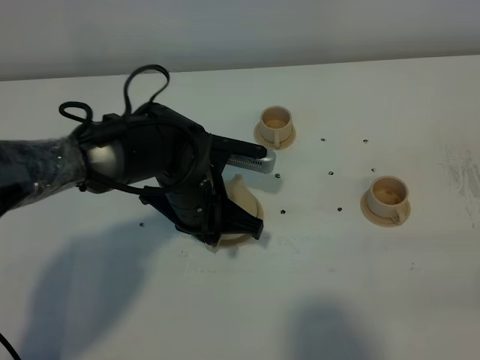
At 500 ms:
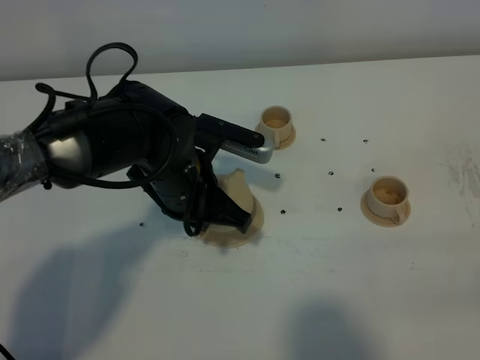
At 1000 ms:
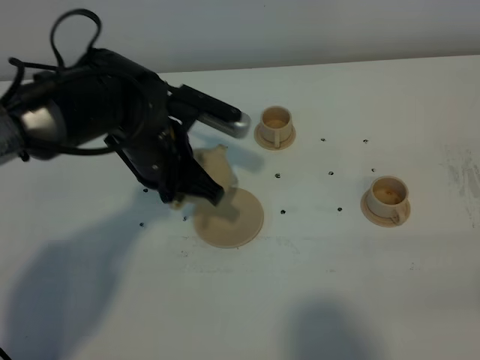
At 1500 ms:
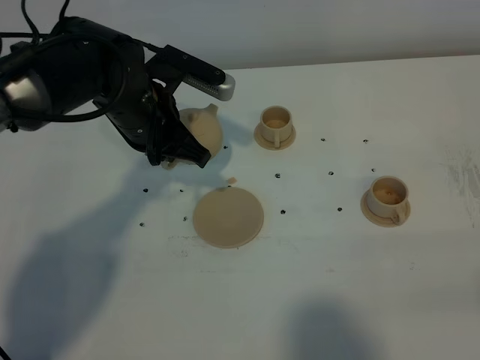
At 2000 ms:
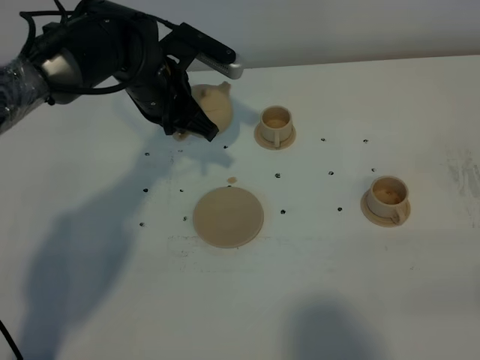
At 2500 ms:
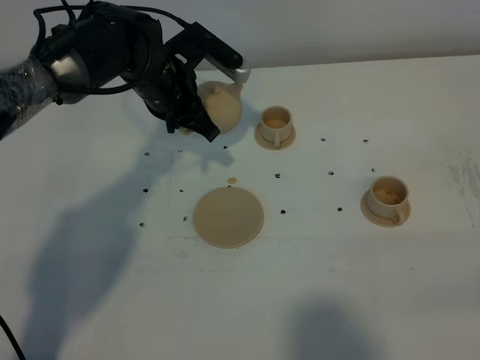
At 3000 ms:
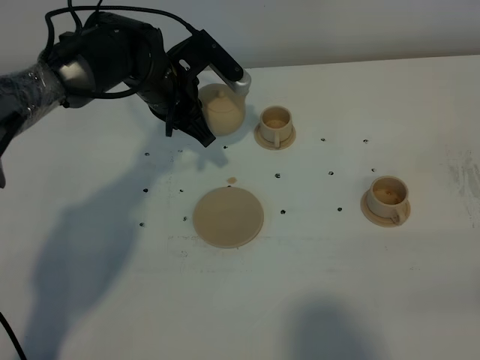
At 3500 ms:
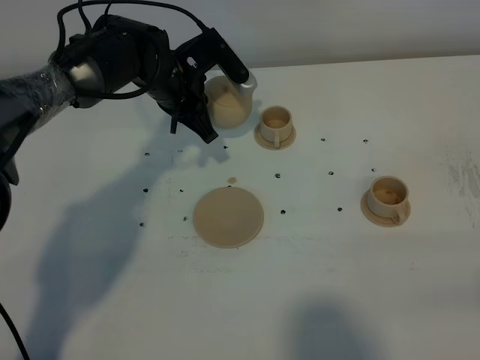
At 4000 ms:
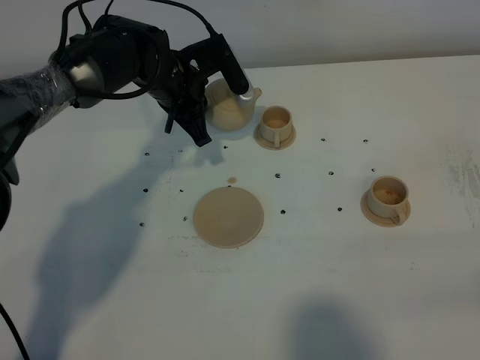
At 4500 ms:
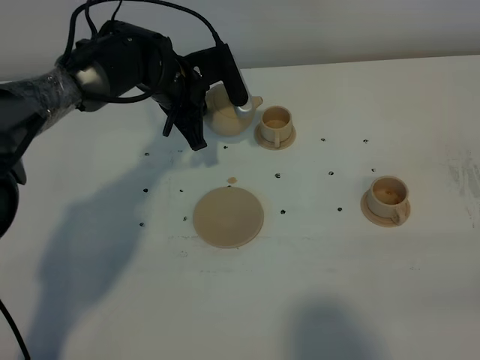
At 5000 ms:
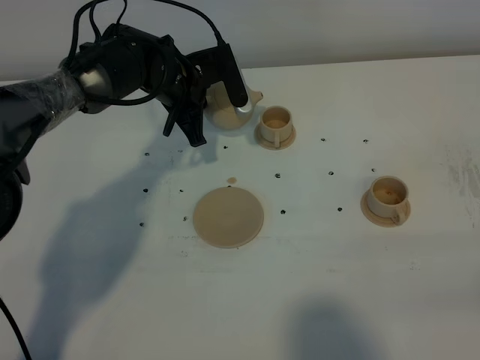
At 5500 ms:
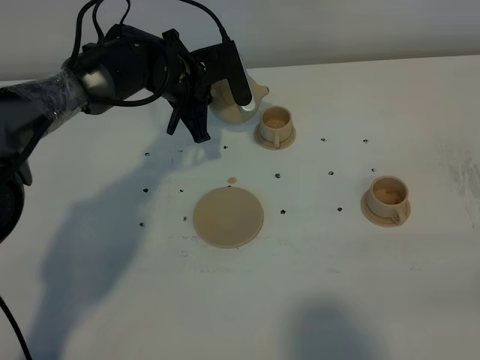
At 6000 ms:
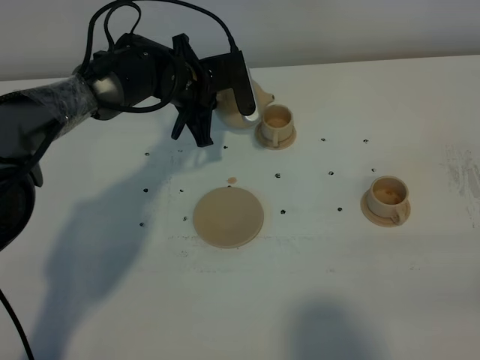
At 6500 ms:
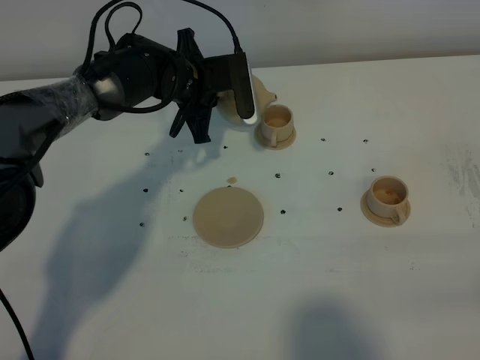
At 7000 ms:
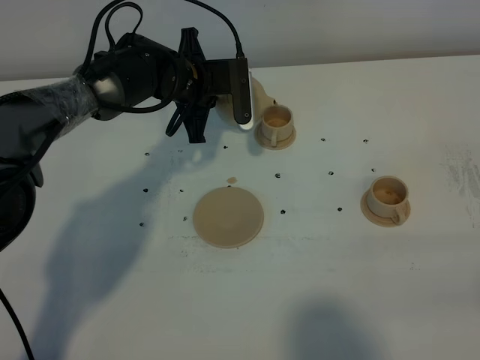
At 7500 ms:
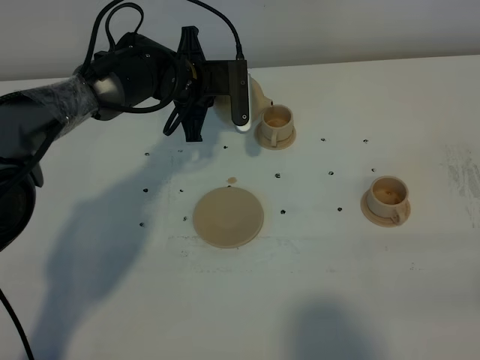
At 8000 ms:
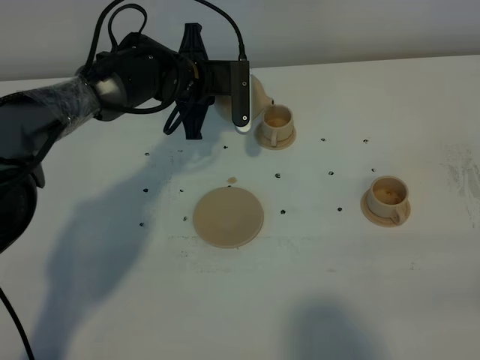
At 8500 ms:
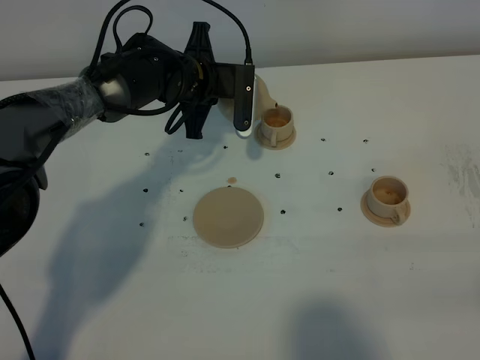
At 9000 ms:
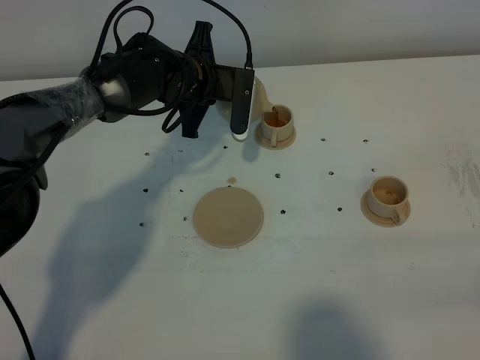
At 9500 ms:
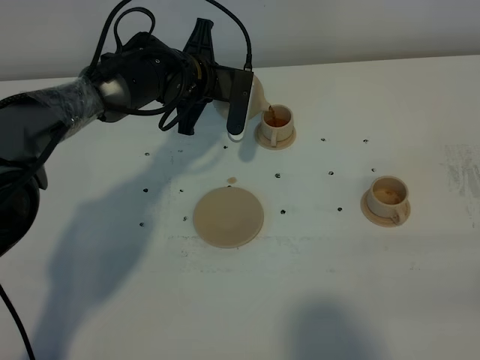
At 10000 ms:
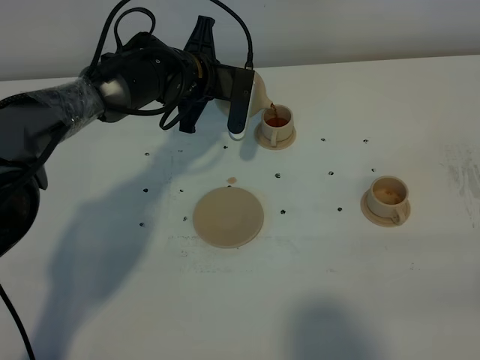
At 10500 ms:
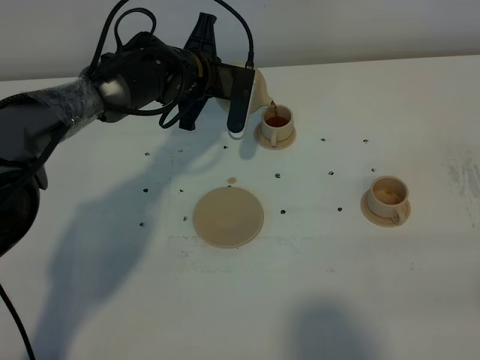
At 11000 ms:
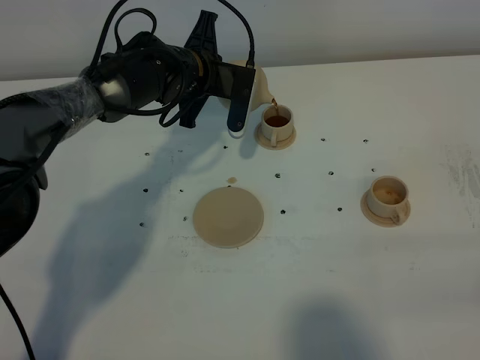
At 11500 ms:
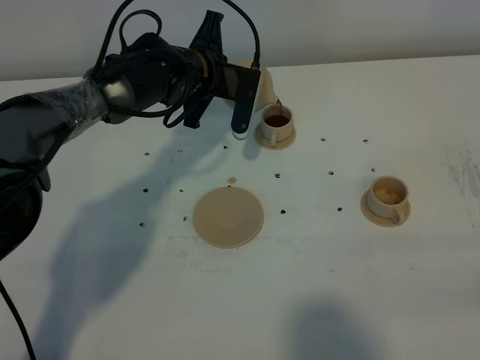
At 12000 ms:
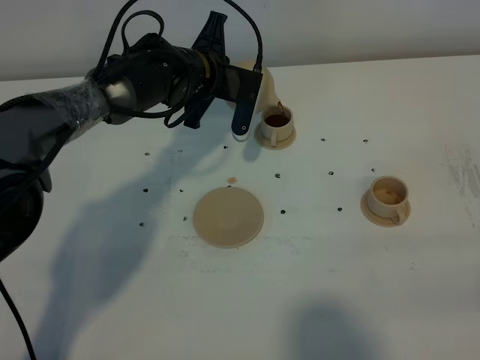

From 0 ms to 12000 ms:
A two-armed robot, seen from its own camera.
Task of the whole recording: grasp the brown teapot and pour the tea into the two brown teacups one by one, put the brown teapot back in its original place.
From 0 ms to 2000 ms: The left gripper goes about 15 cm forward and upward.
From 4000 ms to 6000 ms: The grippers stay close to where they were, moving slightly.
From 6000 ms to 8000 ms: The grippers make only small movements.
From 8000 ms to 12000 ms: The grippers stay close to where they were, moving slightly.

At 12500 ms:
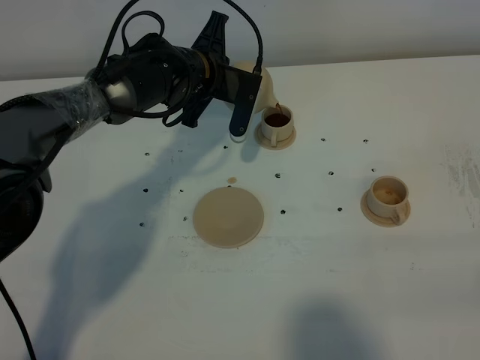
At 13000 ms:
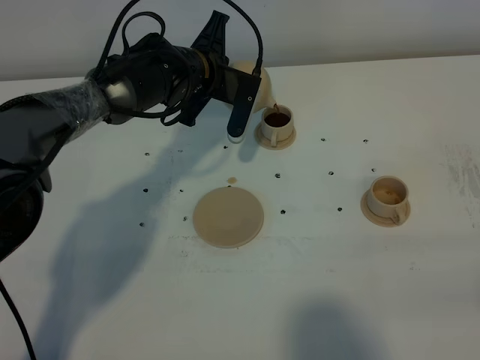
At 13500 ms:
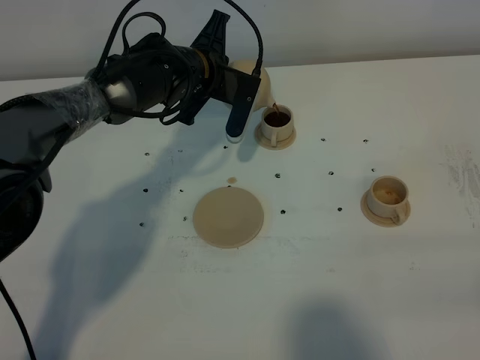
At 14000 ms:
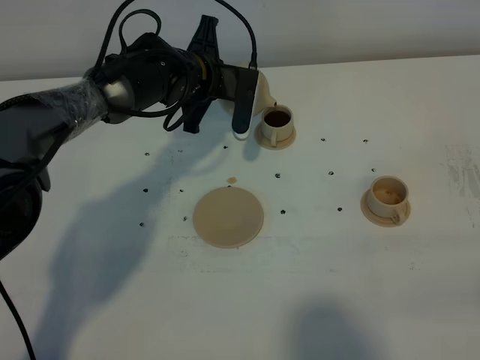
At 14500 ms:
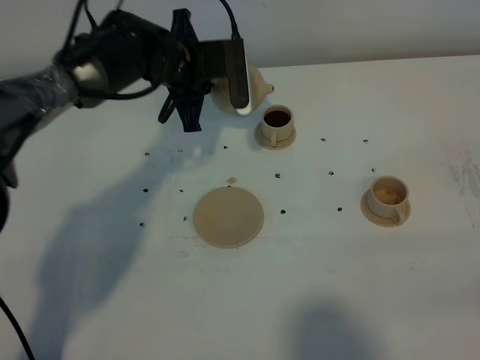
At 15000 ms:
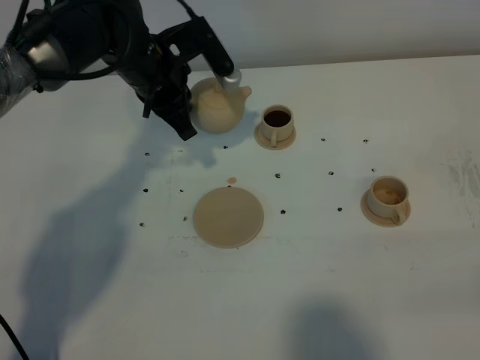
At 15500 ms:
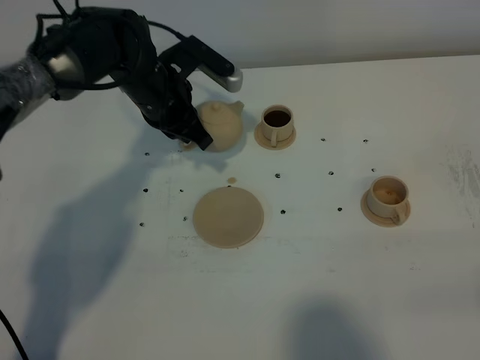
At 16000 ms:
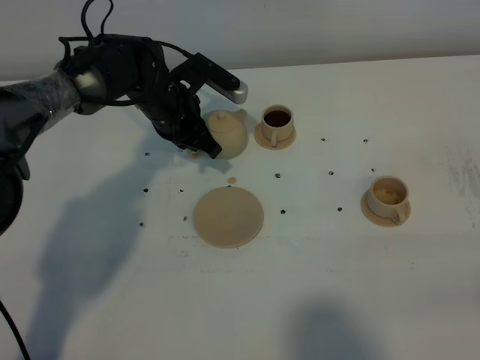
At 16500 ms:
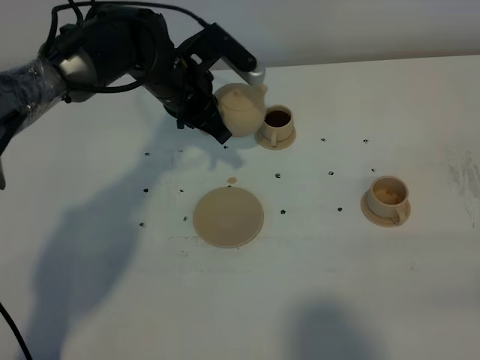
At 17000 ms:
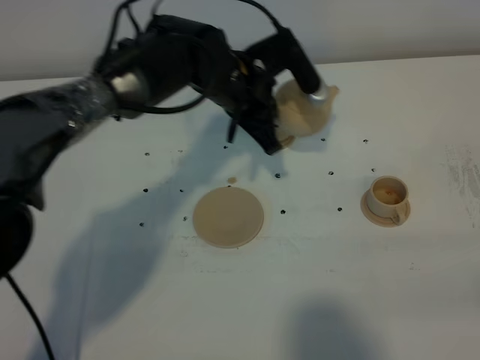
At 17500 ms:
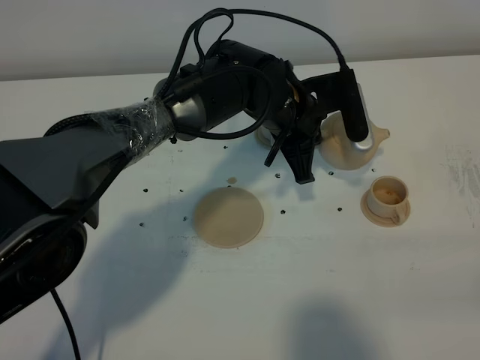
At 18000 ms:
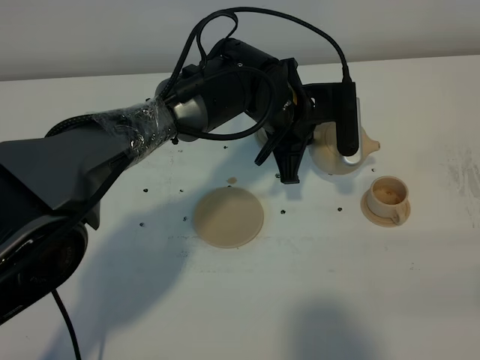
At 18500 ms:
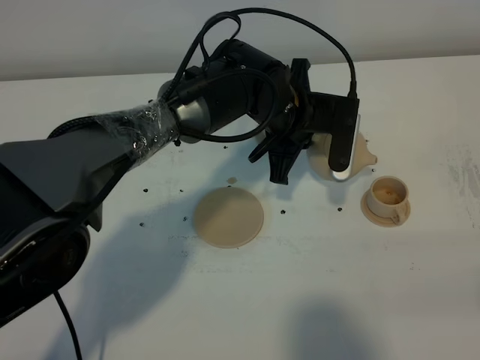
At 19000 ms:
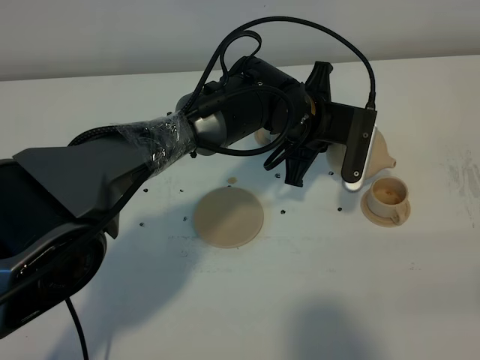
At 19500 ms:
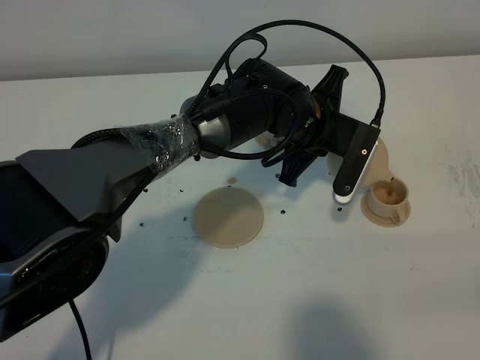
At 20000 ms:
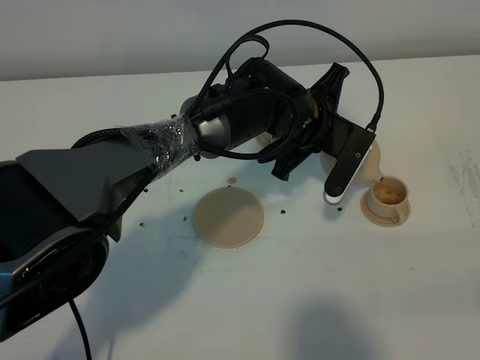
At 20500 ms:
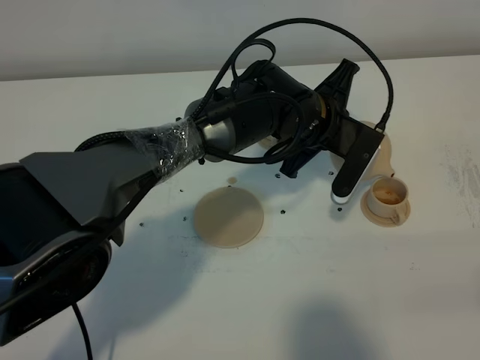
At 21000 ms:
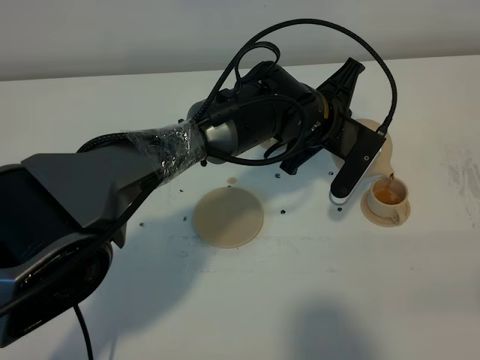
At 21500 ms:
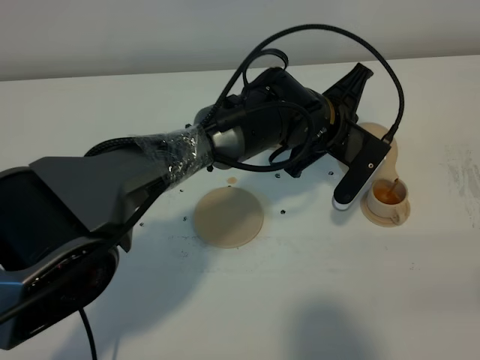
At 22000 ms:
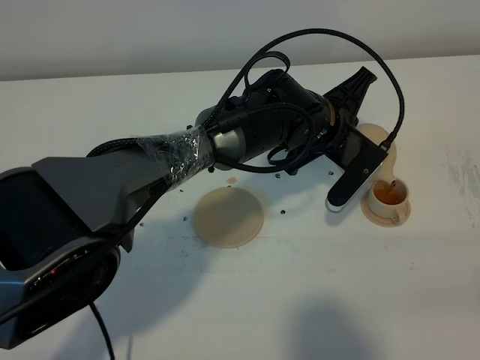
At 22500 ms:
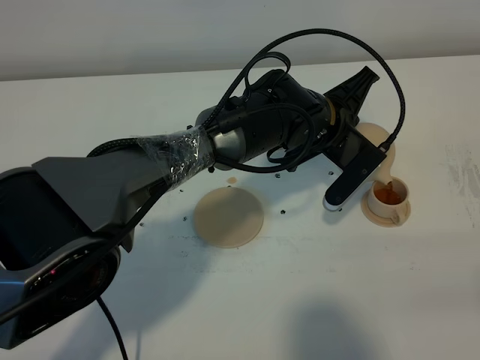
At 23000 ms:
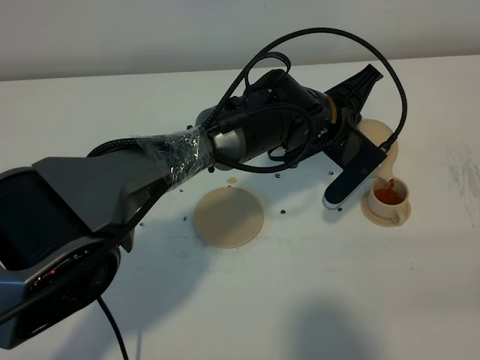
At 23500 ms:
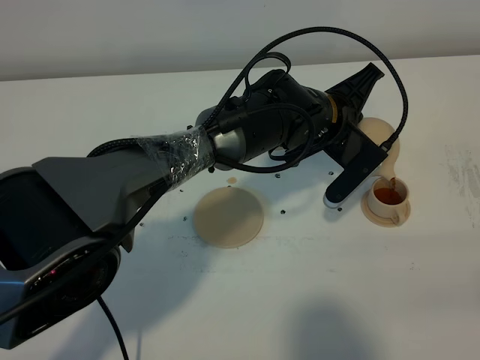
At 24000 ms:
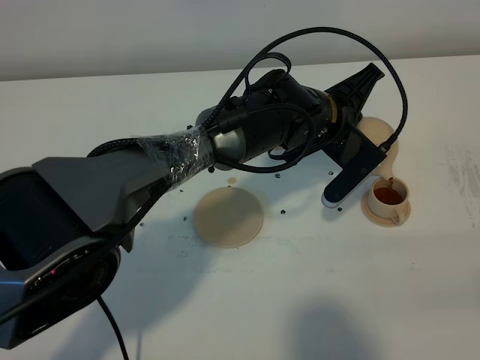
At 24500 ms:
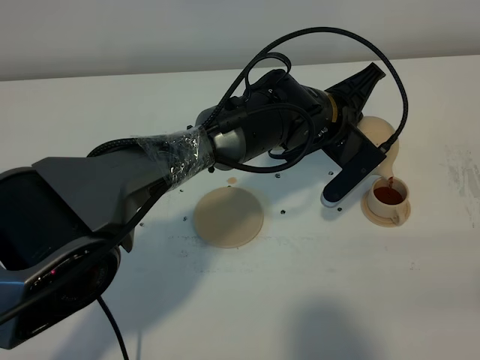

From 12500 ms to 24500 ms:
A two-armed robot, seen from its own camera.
Task of the whole recording: grasp the brown teapot and pour the tea into the two brown teacups one by one, put the brown teapot back in its original place.
From 14500 ms to 16500 ms: The left gripper travels downward and back again, roughly 5 cm each way.
From 16500 ms to 18500 ms: The left gripper shifts some 15 cm to the right.
From 20500 ms to 24500 ms: The grippers stay close to where they were, moving slightly.

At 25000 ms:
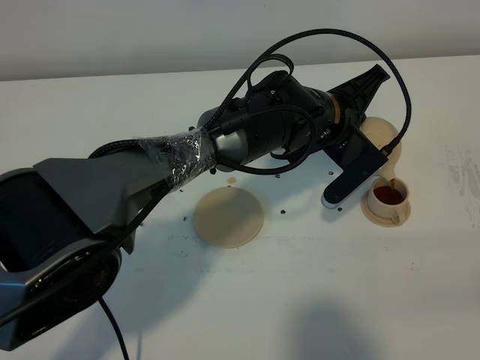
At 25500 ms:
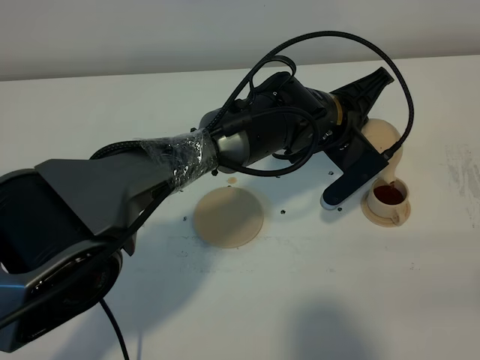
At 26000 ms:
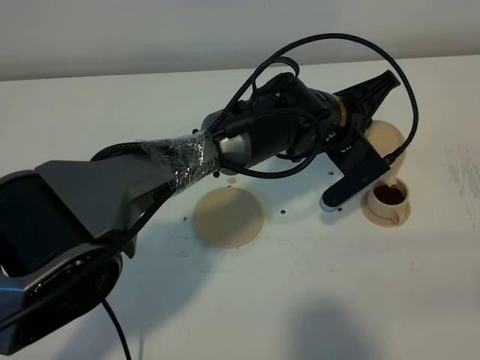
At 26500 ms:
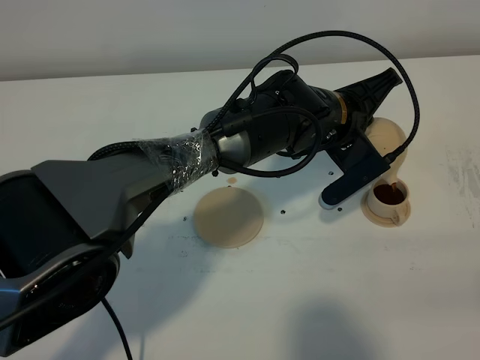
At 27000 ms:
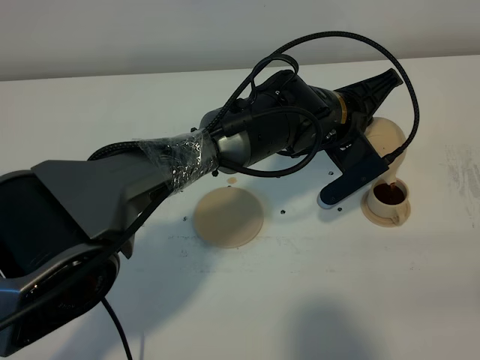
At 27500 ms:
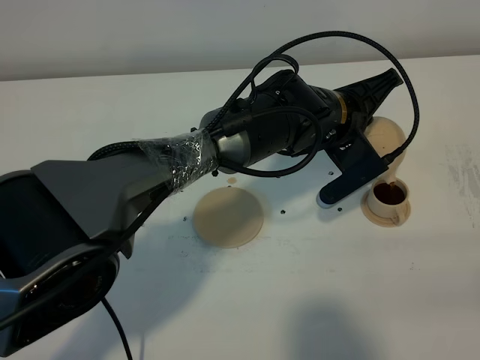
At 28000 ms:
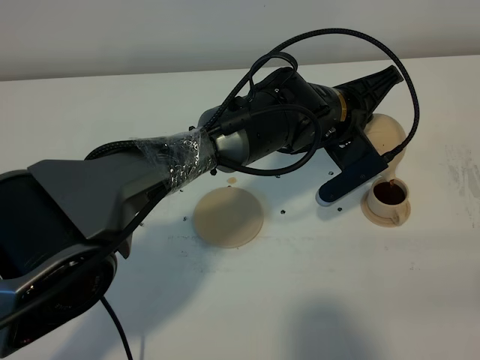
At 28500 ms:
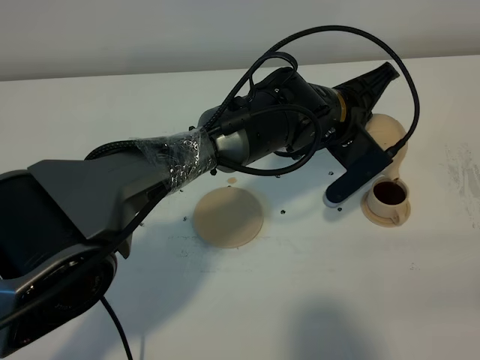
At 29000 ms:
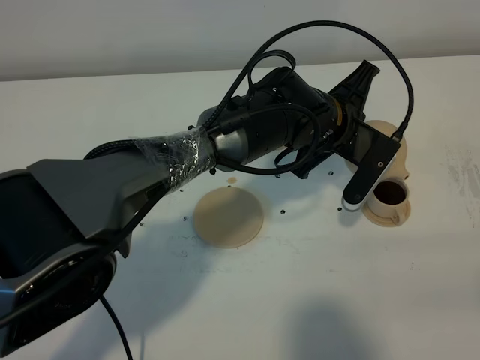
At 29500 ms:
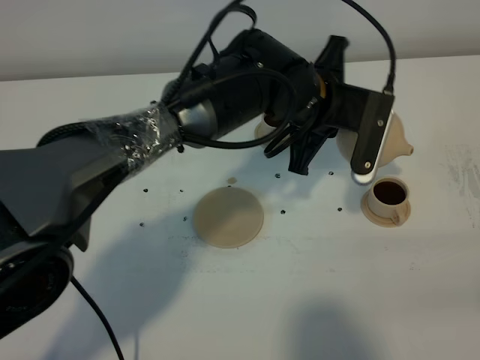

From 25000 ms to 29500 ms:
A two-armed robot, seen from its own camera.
Task of the whole recording: grasp the brown teapot and pour the tea into the two brown teacups one by one, put the brown teapot back in its original place.
Step, from 25000 ms to 29000 ms: Pour tea into the teacup with the left gripper.
From 25000 ms to 27000 ms: The grippers make only small movements.
From 27000 ms to 29500 ms: The left gripper moves approximately 5 cm.
